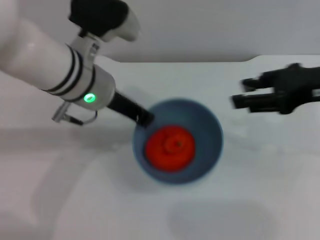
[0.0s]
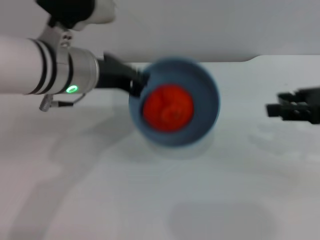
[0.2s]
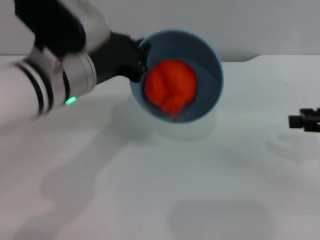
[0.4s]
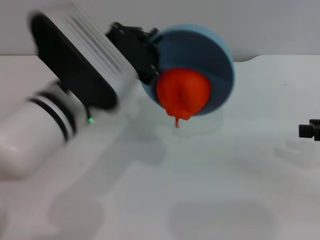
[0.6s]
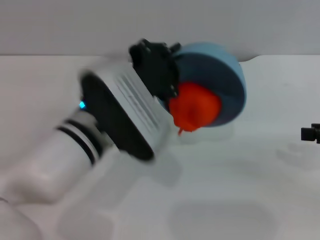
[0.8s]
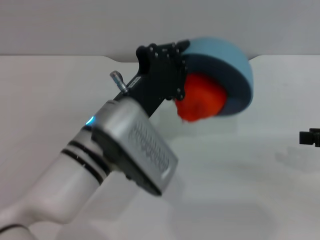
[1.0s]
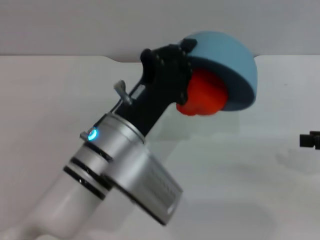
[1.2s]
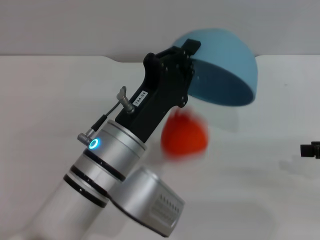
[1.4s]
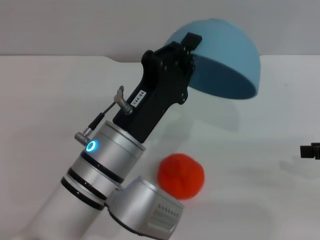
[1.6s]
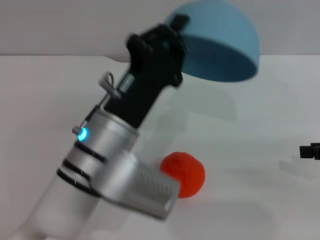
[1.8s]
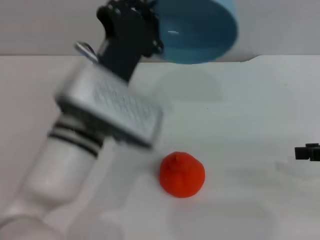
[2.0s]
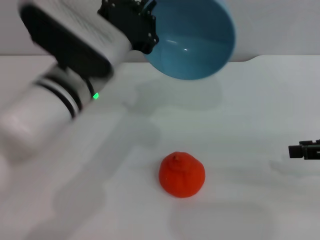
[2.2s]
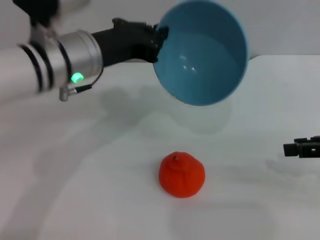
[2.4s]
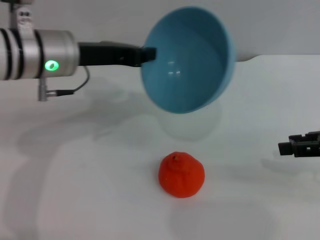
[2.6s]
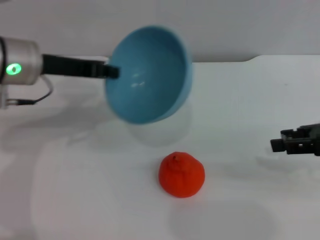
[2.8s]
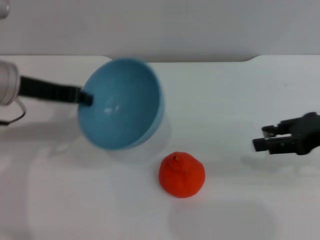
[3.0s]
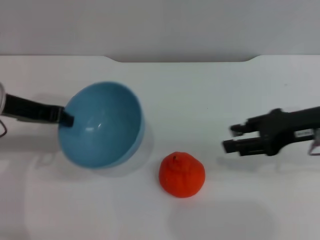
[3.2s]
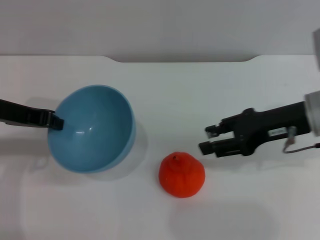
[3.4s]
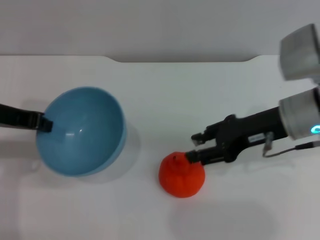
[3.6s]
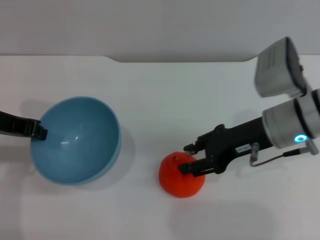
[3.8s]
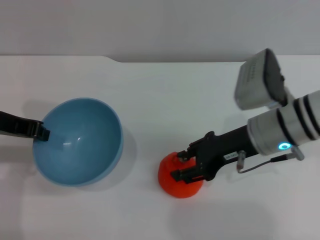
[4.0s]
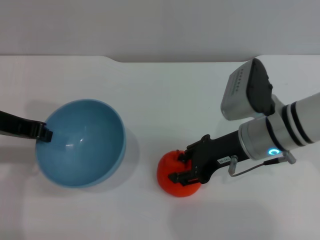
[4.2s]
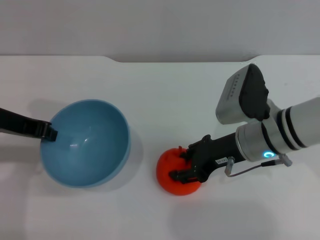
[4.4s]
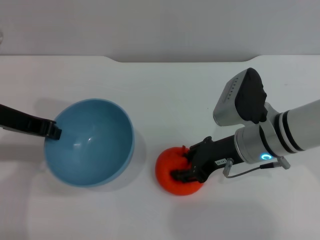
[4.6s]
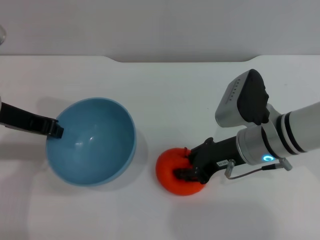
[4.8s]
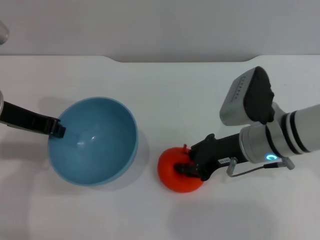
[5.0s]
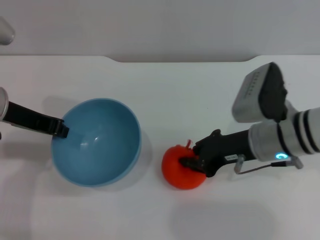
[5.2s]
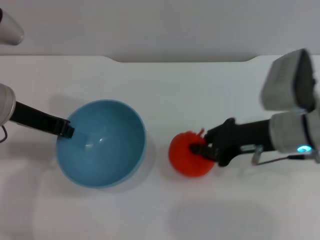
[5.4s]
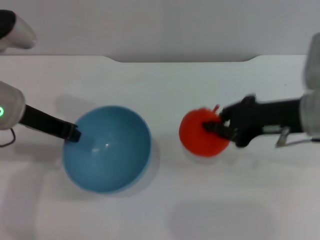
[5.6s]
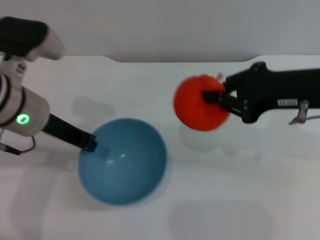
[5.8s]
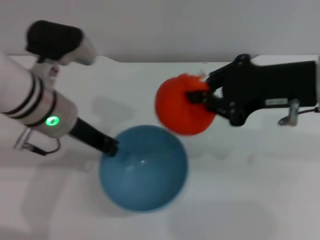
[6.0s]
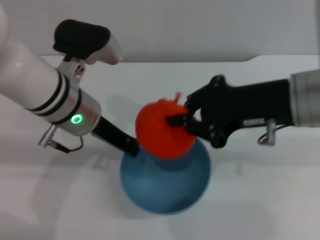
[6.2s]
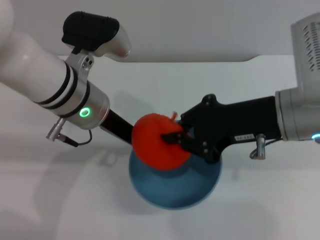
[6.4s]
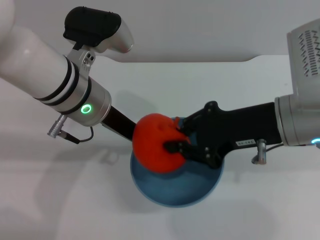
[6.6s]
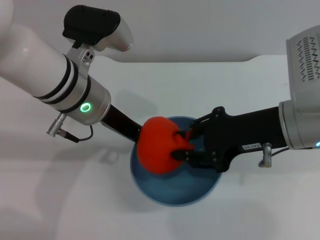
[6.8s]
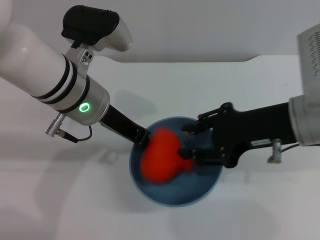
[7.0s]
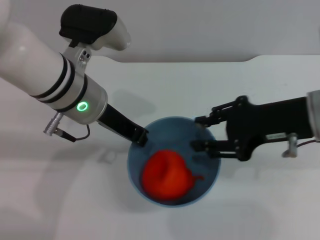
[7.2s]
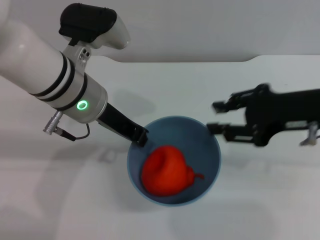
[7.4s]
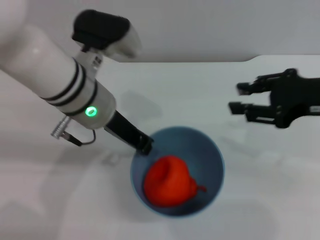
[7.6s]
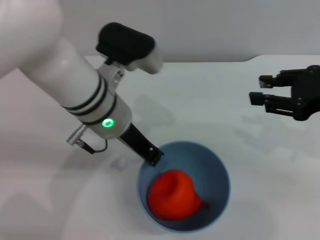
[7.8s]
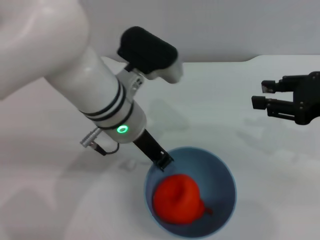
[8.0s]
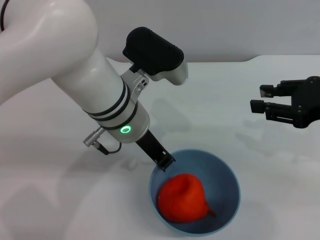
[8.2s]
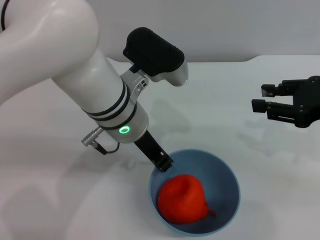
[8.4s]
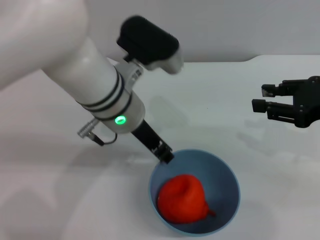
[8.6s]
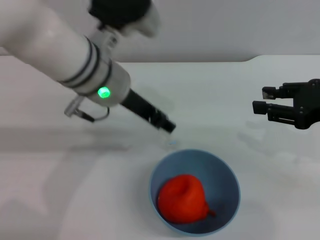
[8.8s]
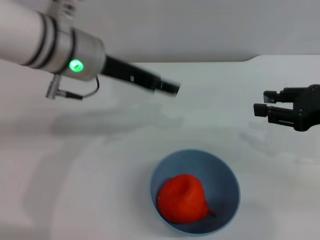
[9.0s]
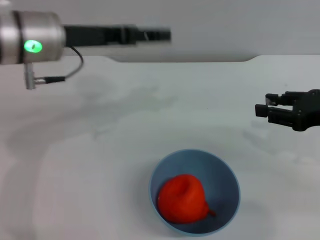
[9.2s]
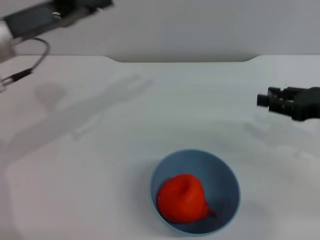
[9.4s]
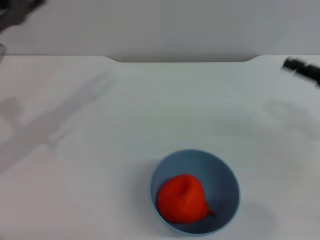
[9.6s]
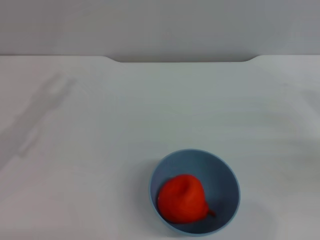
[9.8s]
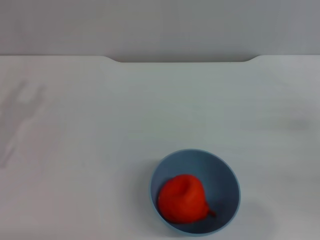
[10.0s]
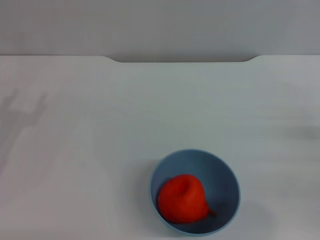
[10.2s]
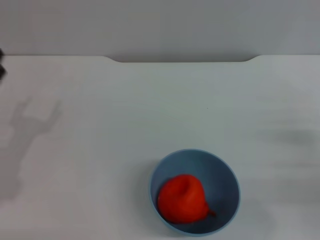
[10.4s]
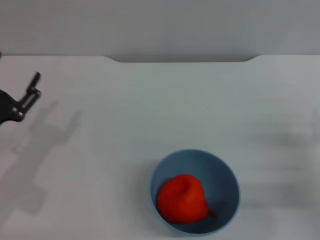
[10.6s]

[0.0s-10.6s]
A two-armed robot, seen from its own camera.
Task of the whole recording: put the orange into the blue bowl and pour it out repeatedly.
Step, 0.0s to 1.6s: Pour the orange out of the bowl.
Step, 1.8s to 5.4s: Pick up the orange with the right gripper.
Step, 5.6s to 7.2s: Place the orange into the bowl.
Step, 7.4s to 8.8s: Place the bowl on the table.
0.0s to 1.6s: The left gripper travels backward and downward by roughly 15 cm; the right gripper is displaced to the right, downward and backward by about 15 cm.
1.6s to 3.0s: The right gripper travels to the left by about 5 cm. The left gripper shifts about 20 cm to the left, forward and upward.
3.0s to 4.6s: The right gripper shifts about 15 cm to the left and downward.
4.6s to 6.0s: The left gripper shifts about 10 cm to the right. Meanwhile the right gripper travels upward by roughly 15 cm, and closes up.
6.0s to 7.6s: The right gripper heads to the right, covering some 5 cm, and opens. Meanwhile the left gripper moves approximately 5 cm.
7.6s to 9.0s: The right gripper ends up some 5 cm from where it was; the left gripper shifts by approximately 5 cm, and opens.
9.0s to 10.6s: The right gripper is displaced downward by roughly 15 cm, while the left gripper heads to the left, downward and backward, covering about 25 cm.
